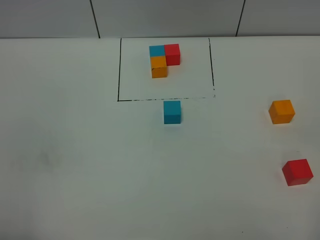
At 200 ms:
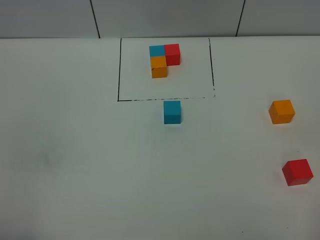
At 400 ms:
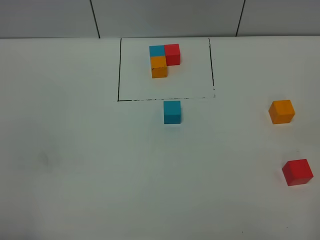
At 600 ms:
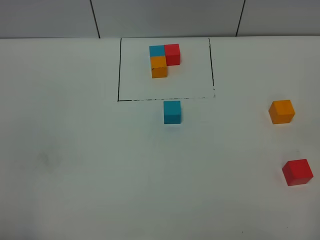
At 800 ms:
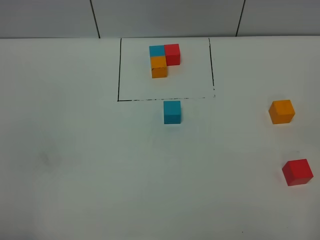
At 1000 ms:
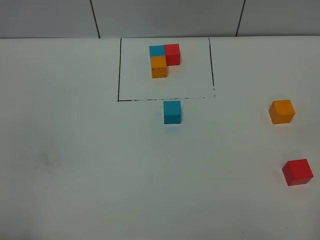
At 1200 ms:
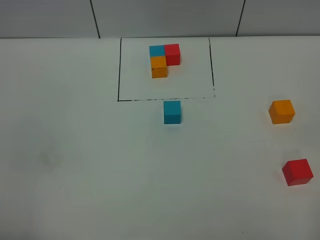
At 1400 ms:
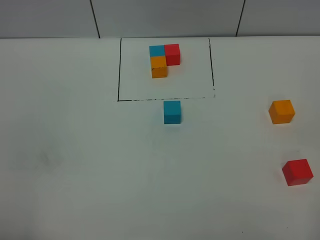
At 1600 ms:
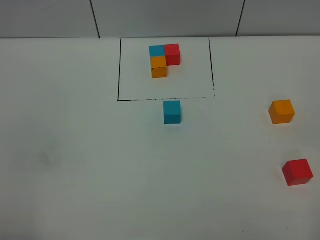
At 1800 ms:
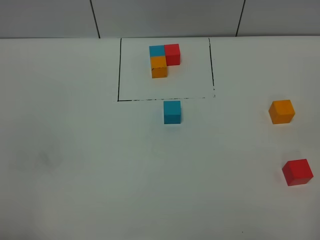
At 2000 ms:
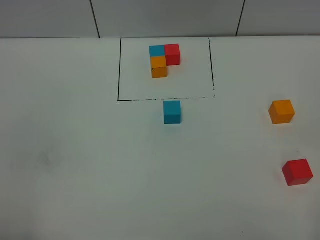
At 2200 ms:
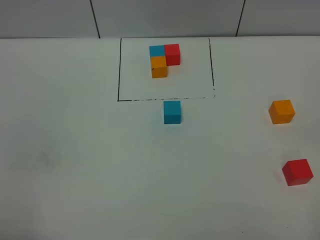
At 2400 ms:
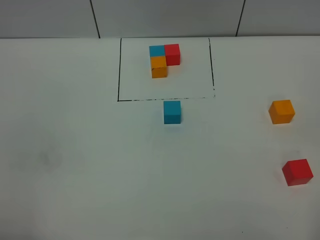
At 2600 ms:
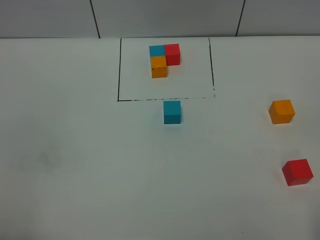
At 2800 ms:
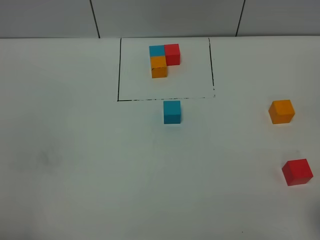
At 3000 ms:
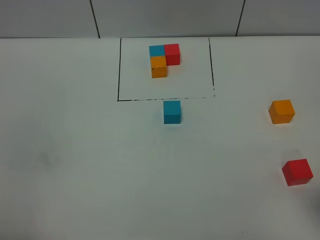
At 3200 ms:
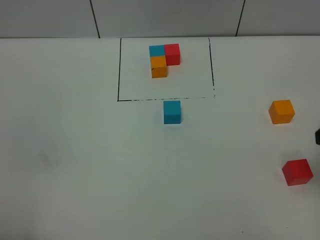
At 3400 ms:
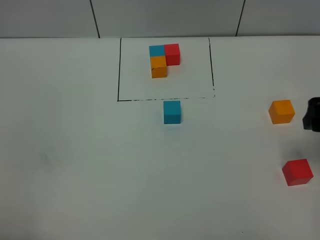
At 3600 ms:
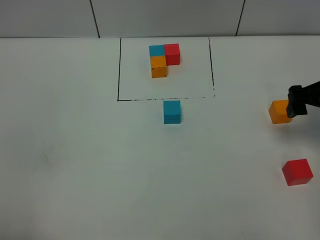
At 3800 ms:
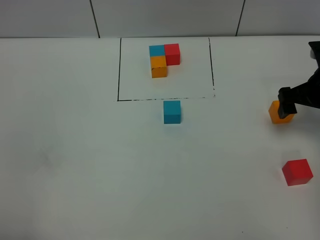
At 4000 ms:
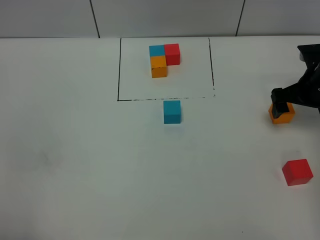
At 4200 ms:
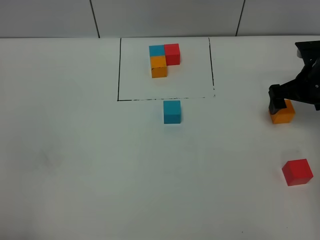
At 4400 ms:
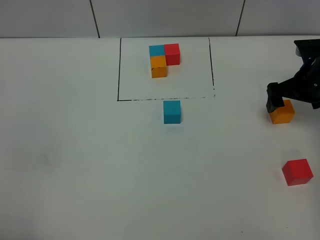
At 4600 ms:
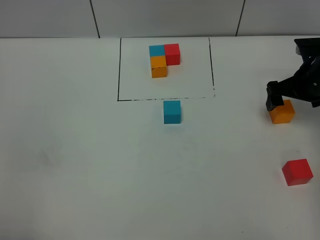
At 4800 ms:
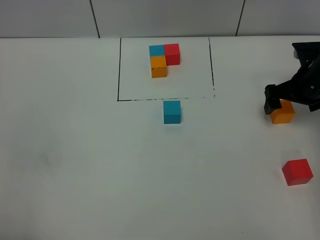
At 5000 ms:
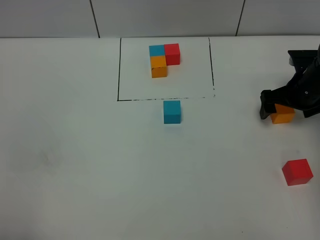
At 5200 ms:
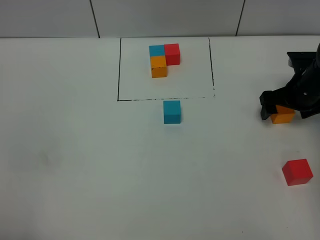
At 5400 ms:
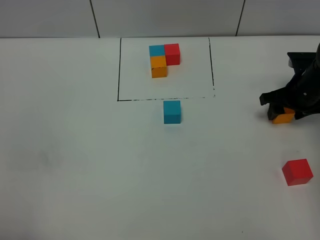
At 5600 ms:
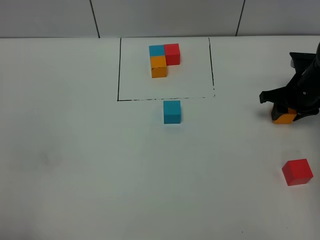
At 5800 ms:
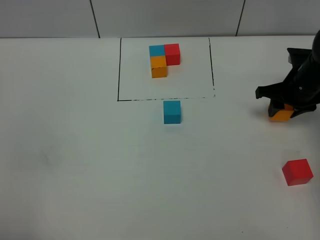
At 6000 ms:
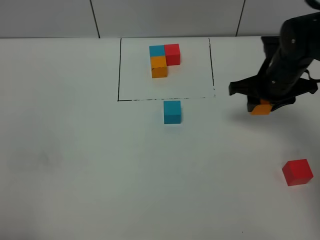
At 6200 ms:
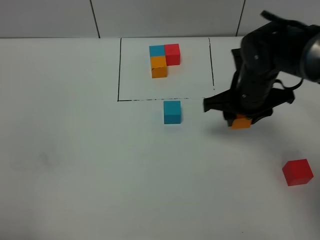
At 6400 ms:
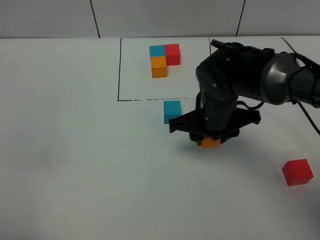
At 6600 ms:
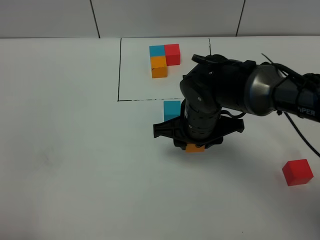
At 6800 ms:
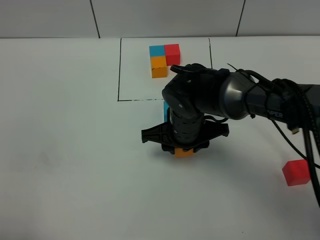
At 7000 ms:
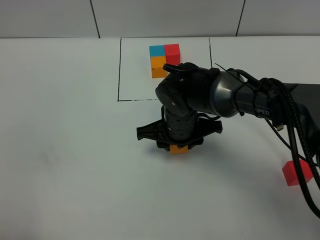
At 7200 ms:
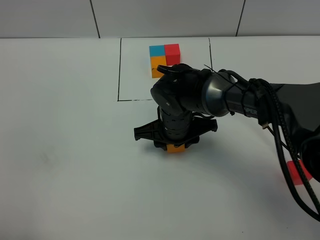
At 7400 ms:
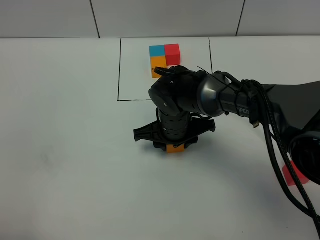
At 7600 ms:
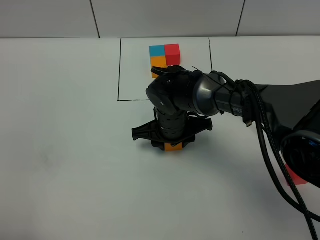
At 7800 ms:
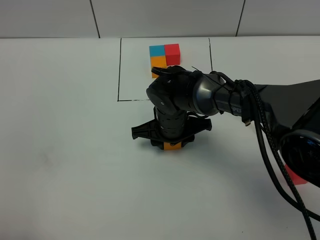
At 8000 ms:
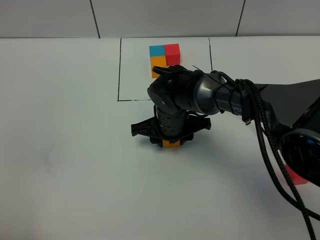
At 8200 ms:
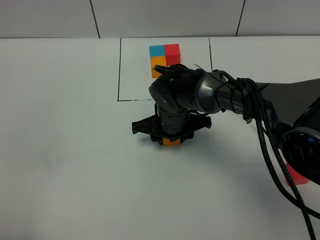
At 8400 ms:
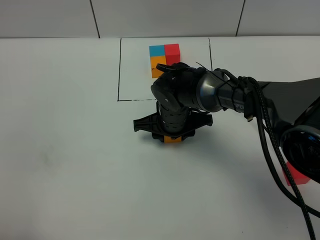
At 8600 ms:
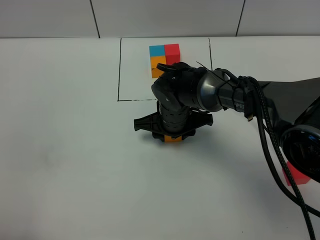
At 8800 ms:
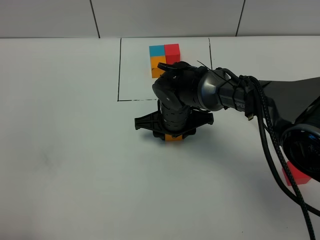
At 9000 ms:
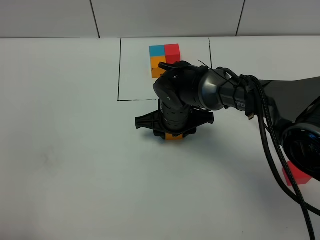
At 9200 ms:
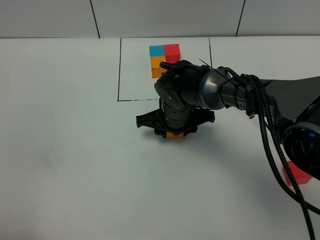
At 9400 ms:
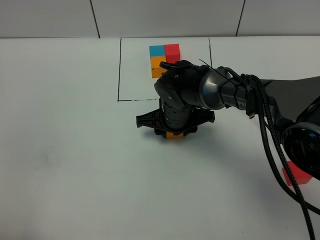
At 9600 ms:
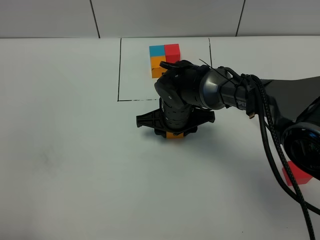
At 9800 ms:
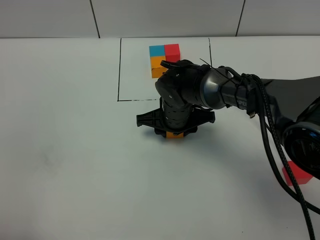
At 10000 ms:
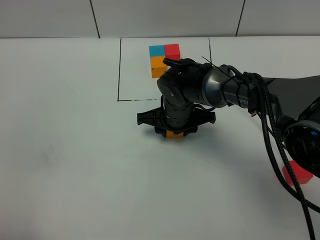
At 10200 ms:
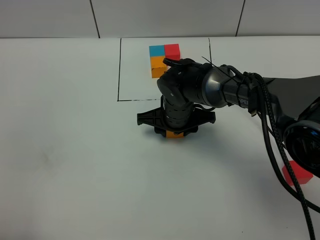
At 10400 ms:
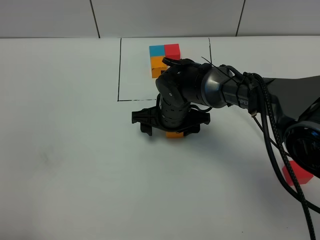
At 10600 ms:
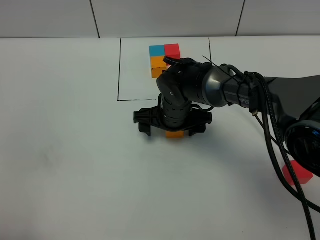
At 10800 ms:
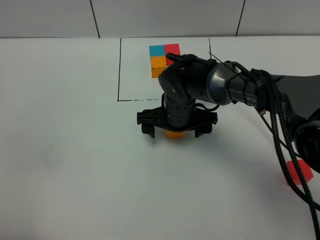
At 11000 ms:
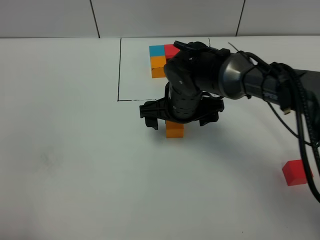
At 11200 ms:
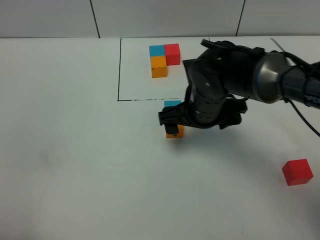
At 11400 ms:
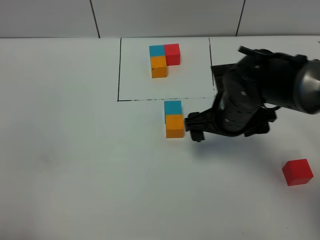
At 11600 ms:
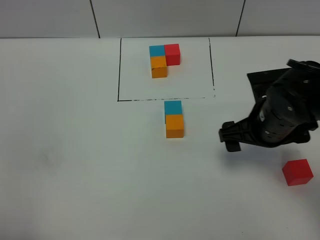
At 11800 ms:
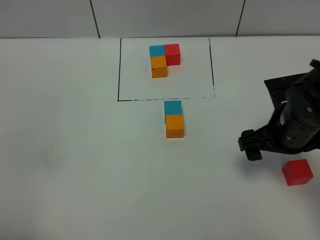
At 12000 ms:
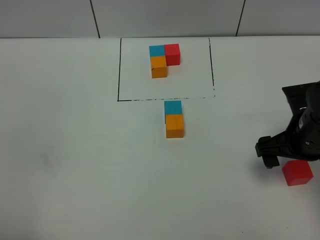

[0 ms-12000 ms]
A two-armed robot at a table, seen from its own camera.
Task of the whole recording: According to the building block template in front, assemble the scattered blocks together.
Step, 0 ms to 10200 ms: Put the orange build block on the behind of the blue build block.
0 ms to 1600 ms: Neither gripper changes place.
3000 ms to 4400 ms: The right gripper travels forward and downward by approximately 30 cm.
4400 ms to 6000 ms: The right gripper heads to the left, covering about 10 cm, and closes its fingers.
6000 ms to 7600 ms: The right gripper shifts roughly 20 cm to the left and downward.
7600 ms to 9000 ms: There are only small adjustments of the grippers.
9000 ms to 10400 ms: The right gripper opens up.
10400 ms to 12000 ms: The right gripper goes approximately 25 cm to the right and backward.

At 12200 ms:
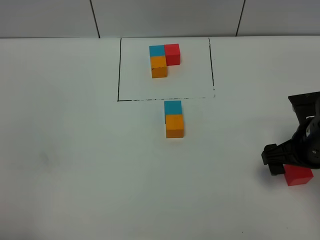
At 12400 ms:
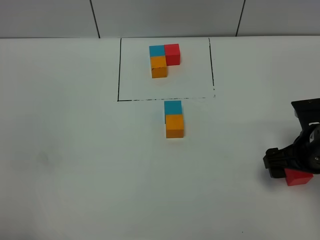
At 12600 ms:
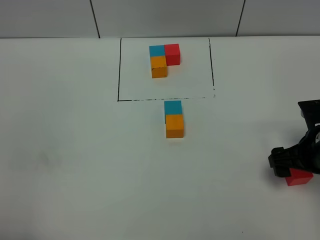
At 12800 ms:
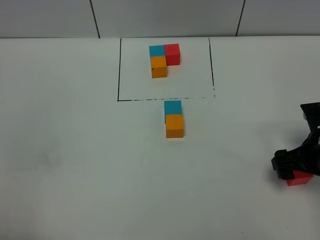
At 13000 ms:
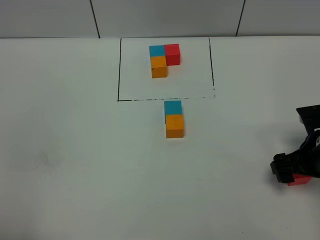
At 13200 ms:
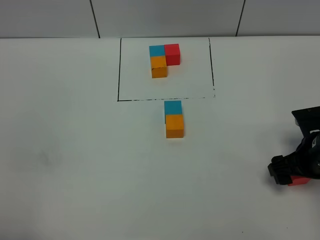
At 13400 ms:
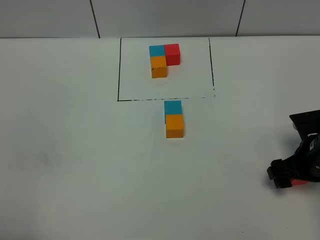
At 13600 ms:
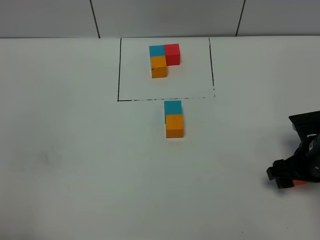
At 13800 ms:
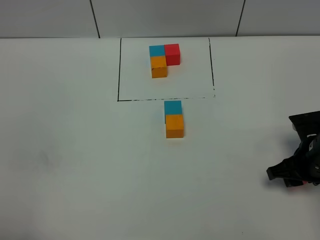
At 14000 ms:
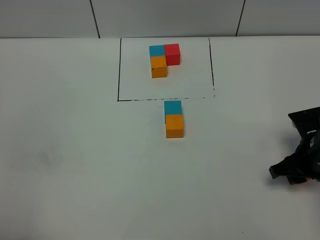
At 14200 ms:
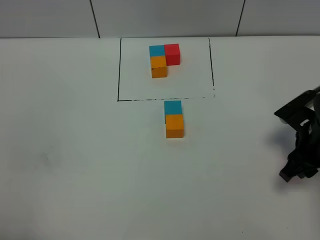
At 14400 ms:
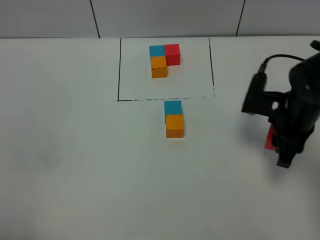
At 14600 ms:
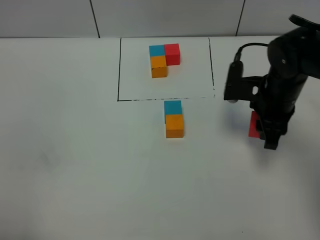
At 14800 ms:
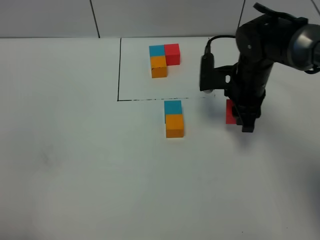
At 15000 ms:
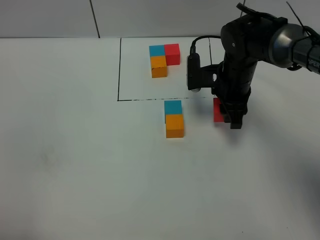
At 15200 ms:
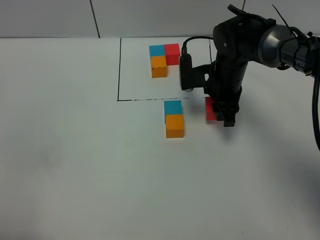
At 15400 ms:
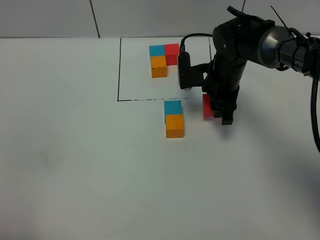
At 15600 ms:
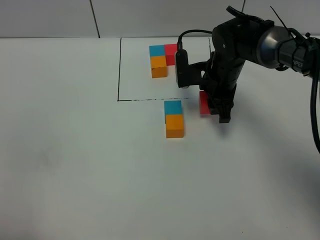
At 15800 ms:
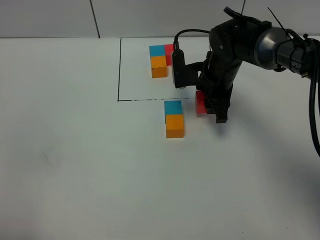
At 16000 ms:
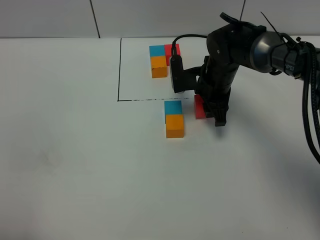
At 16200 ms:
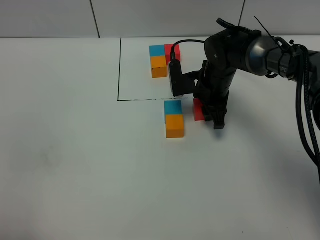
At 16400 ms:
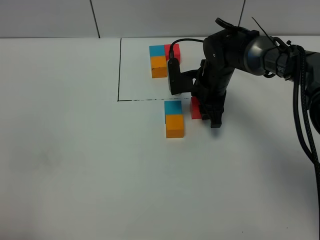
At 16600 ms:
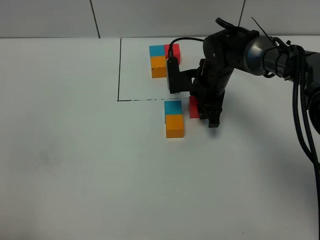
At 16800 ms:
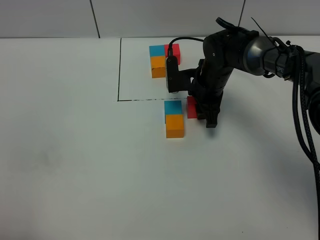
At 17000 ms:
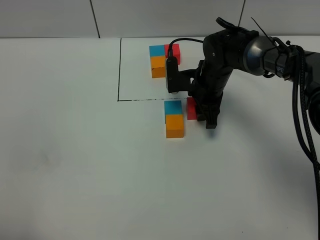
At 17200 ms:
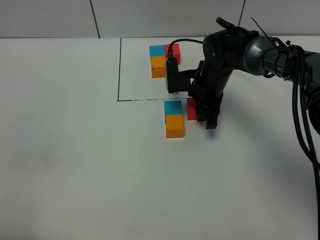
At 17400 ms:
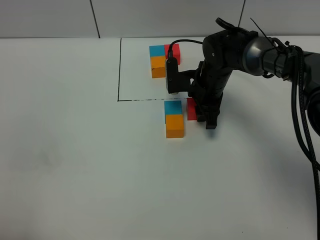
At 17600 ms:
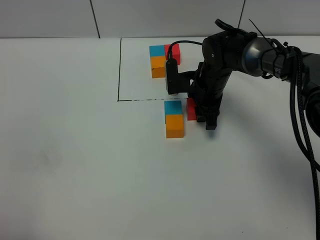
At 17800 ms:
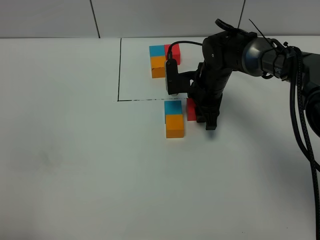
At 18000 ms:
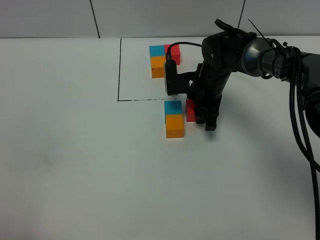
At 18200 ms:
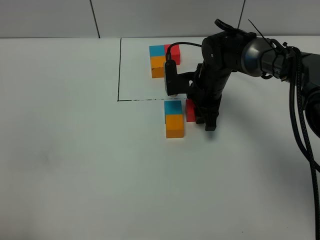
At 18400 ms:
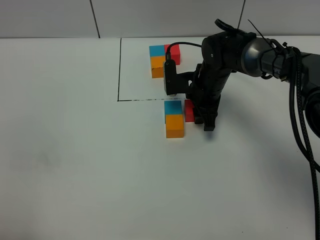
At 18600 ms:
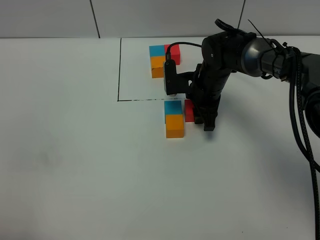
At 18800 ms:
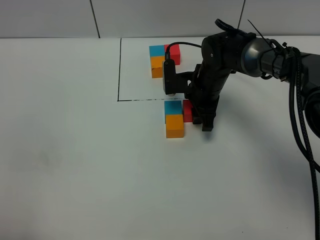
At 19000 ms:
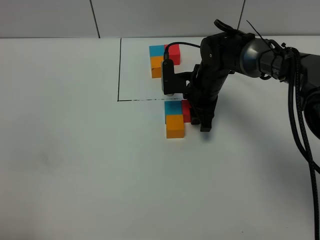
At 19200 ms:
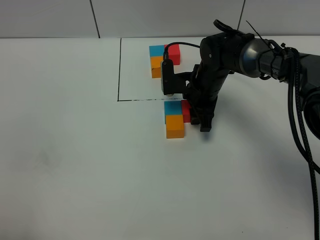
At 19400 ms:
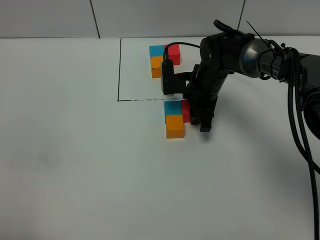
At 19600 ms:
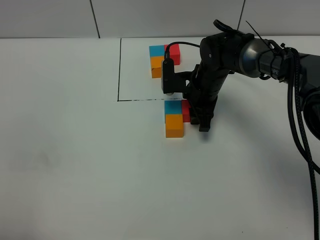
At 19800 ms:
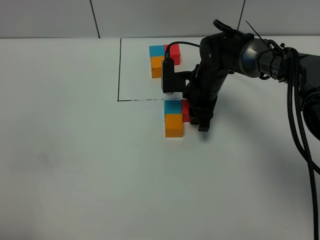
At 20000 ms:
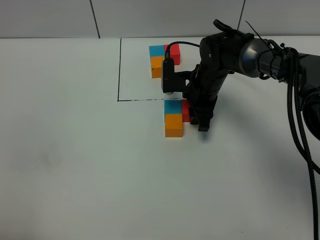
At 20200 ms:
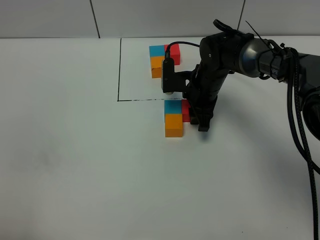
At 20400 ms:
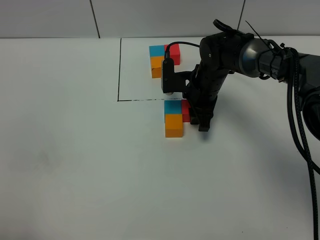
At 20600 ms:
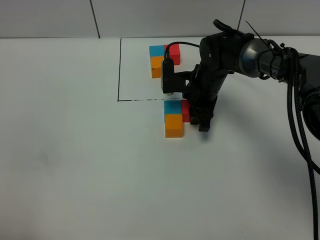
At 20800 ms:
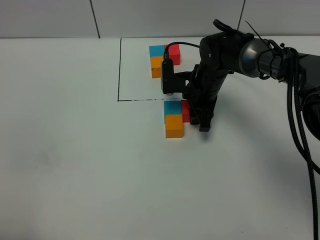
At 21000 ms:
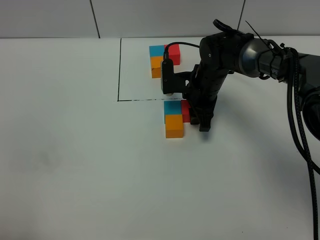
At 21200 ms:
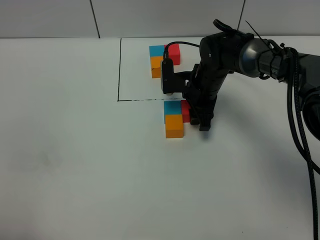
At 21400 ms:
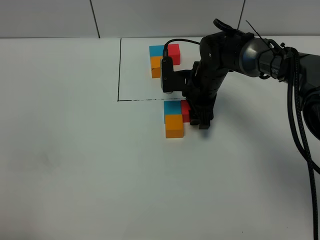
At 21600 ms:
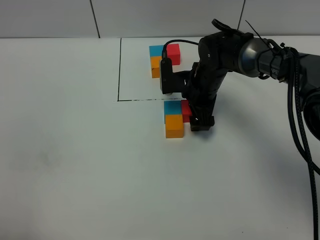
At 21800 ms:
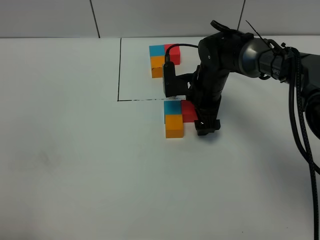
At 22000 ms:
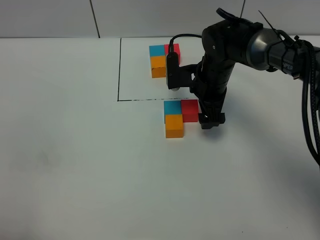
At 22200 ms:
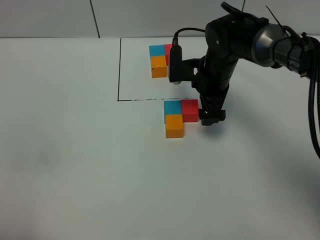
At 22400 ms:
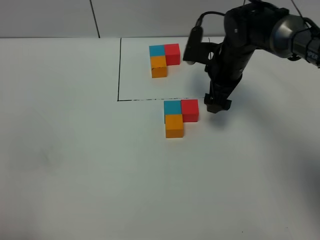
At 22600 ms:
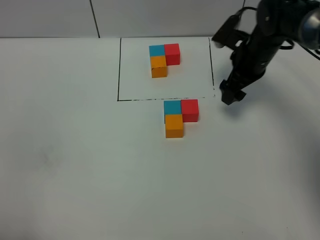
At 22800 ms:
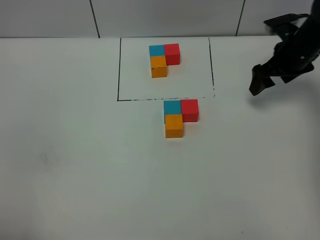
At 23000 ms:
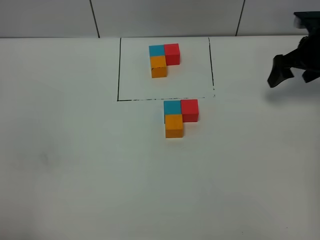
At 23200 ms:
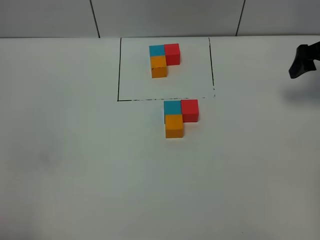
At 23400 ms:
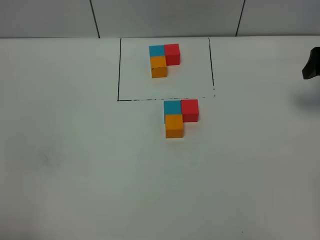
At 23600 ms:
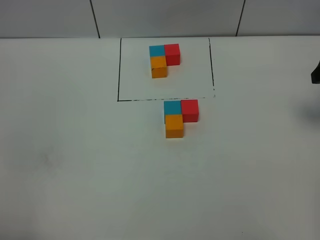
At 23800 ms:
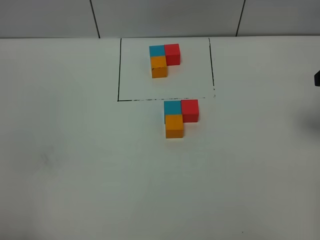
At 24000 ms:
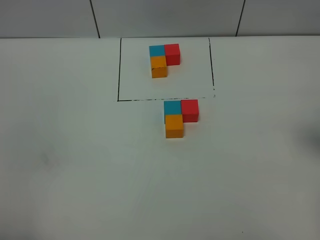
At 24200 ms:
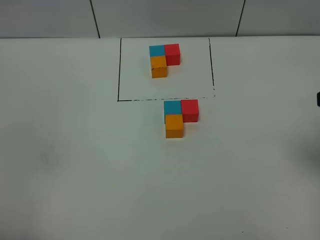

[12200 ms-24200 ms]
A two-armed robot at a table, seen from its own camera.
Task of the whole recording: According to the building block template in front, assemble the scattered blocks together.
Step, 12200 ms to 21600 ms: Put the red build block on the right of the blue build block.
12200 ms to 13800 ms: The right gripper travels downward by roughly 5 cm, and closes its fingers.
13800 ms to 15200 ms: The right gripper moves forward and to the left, some 20 cm.
15200 ms to 16600 ms: The grippers stay close to where they were, moving slightly.
16600 ms to 18200 ms: Neither gripper changes place.
18200 ms to 21200 ms: The two grippers keep their place.
21200 ms to 22600 ms: The right gripper moves to the right and upward, roughly 15 cm, and opens its fingers.
22600 ms to 24200 ms: The right gripper moves backward, upward and to the right, roughly 30 cm.
